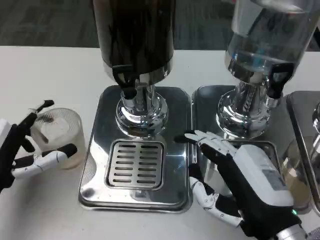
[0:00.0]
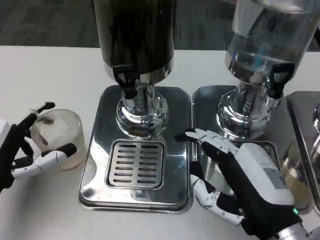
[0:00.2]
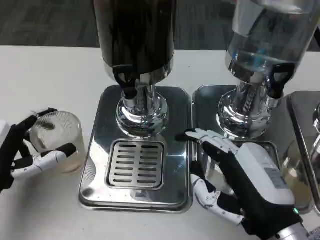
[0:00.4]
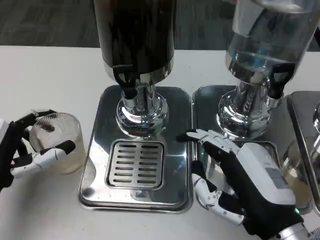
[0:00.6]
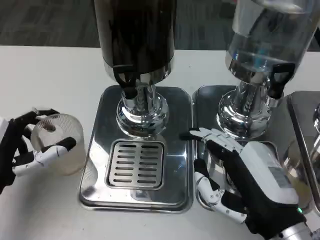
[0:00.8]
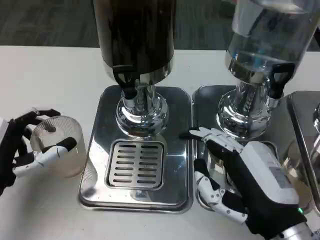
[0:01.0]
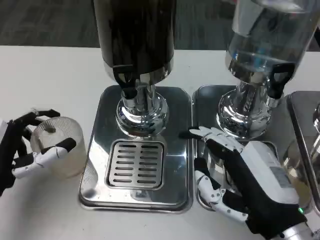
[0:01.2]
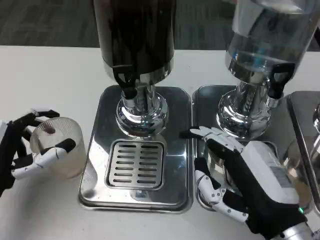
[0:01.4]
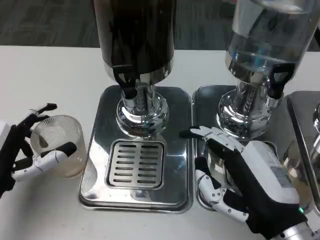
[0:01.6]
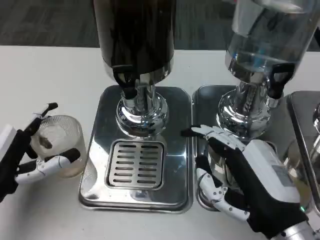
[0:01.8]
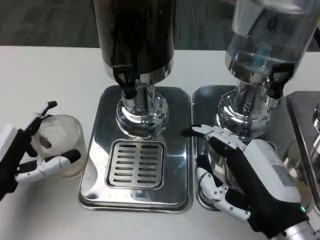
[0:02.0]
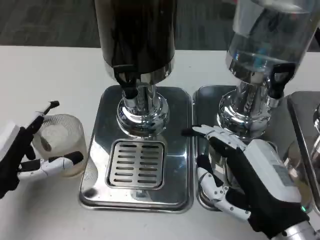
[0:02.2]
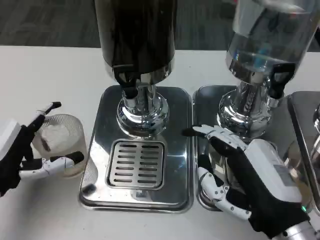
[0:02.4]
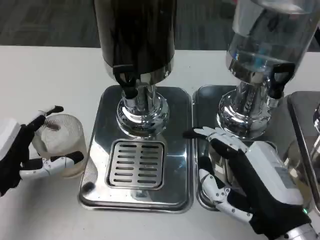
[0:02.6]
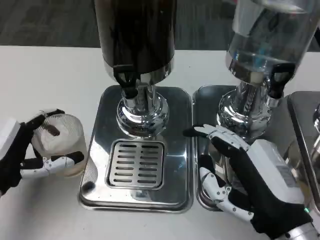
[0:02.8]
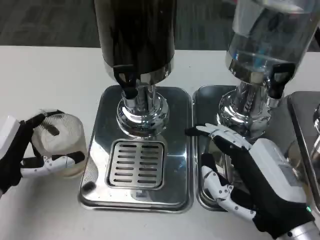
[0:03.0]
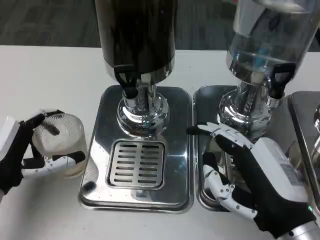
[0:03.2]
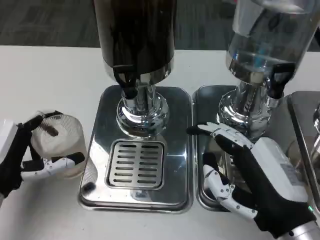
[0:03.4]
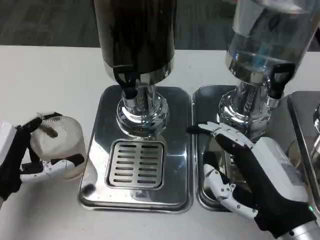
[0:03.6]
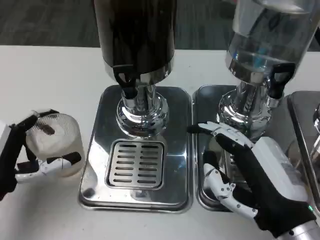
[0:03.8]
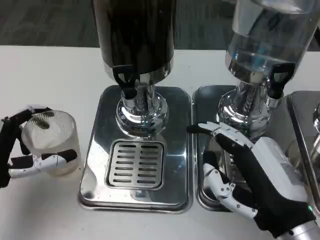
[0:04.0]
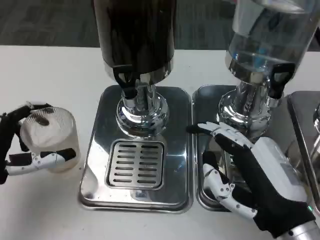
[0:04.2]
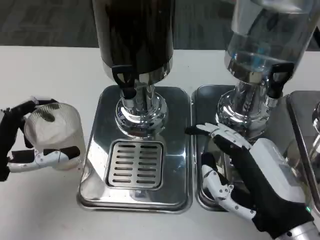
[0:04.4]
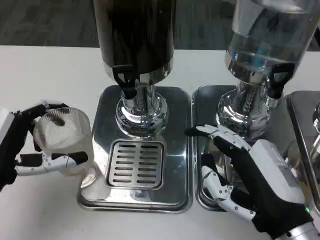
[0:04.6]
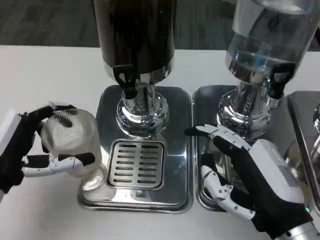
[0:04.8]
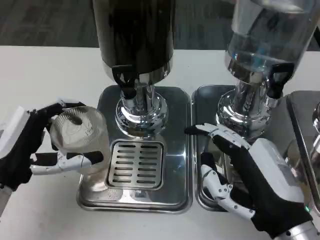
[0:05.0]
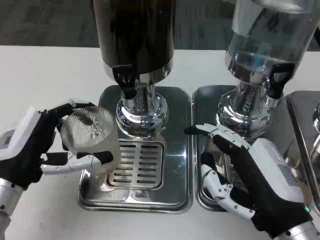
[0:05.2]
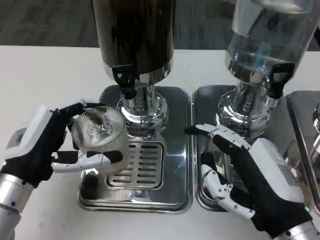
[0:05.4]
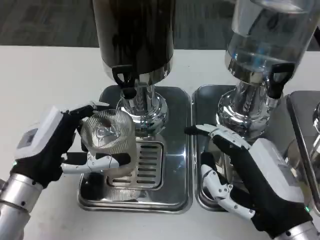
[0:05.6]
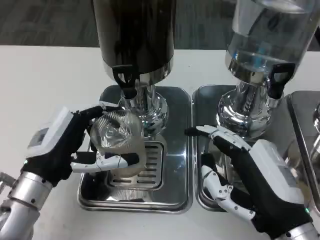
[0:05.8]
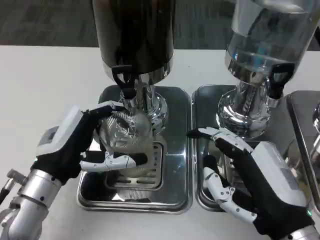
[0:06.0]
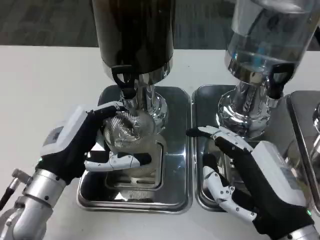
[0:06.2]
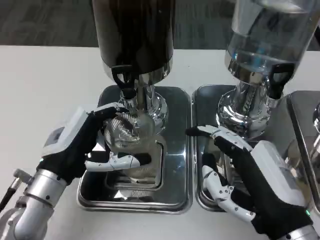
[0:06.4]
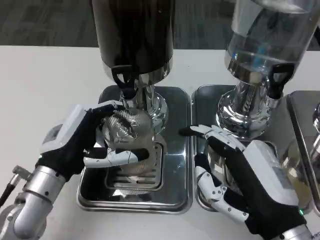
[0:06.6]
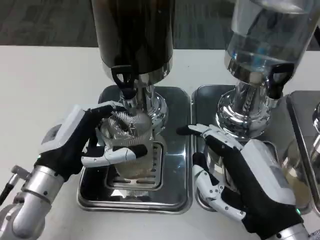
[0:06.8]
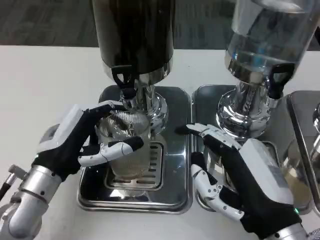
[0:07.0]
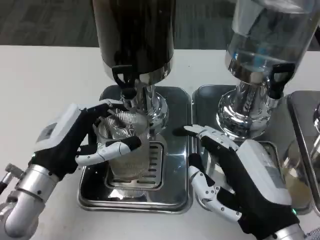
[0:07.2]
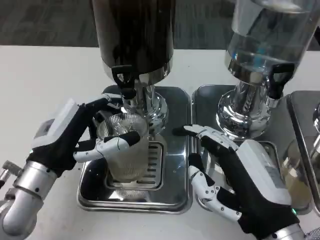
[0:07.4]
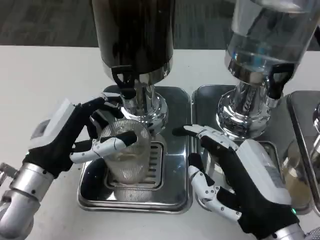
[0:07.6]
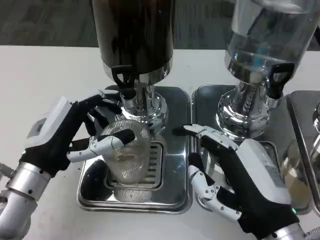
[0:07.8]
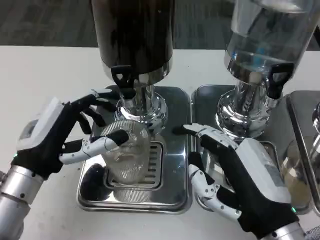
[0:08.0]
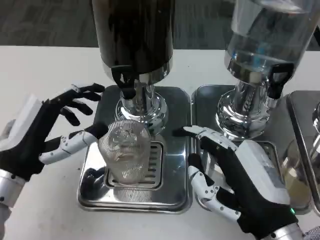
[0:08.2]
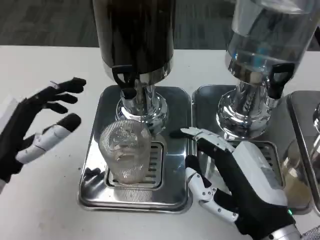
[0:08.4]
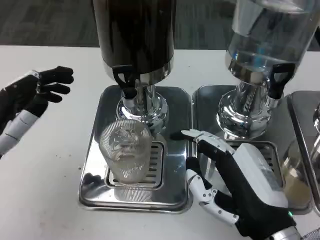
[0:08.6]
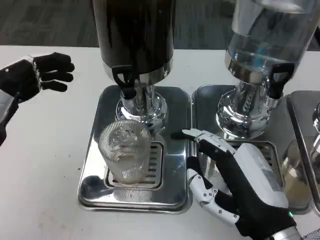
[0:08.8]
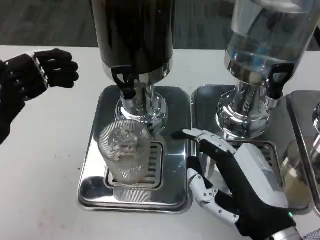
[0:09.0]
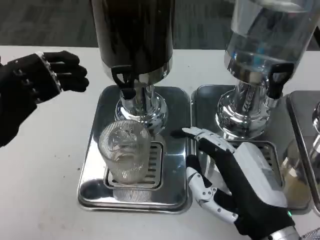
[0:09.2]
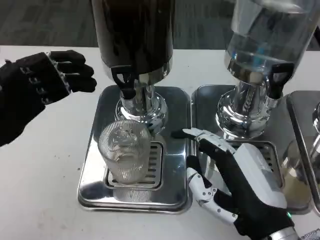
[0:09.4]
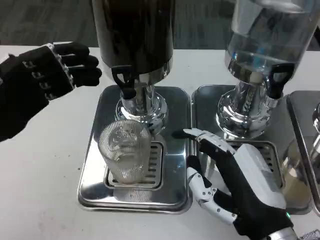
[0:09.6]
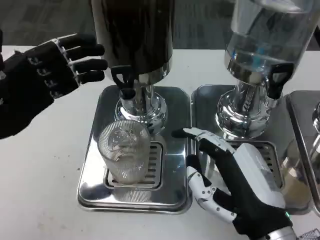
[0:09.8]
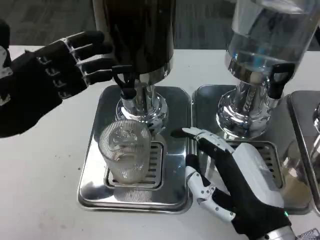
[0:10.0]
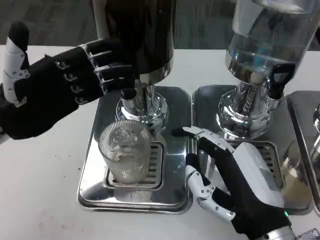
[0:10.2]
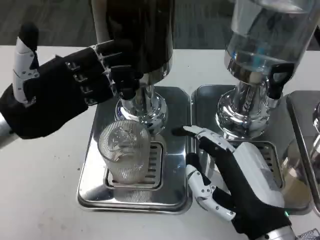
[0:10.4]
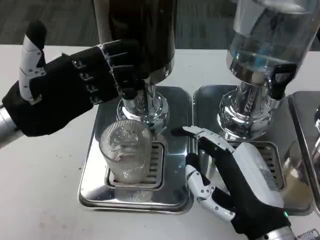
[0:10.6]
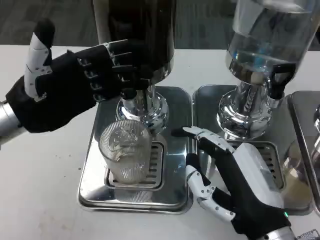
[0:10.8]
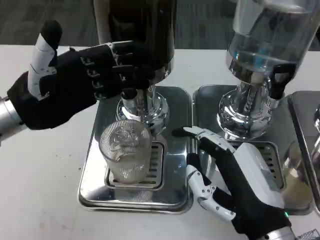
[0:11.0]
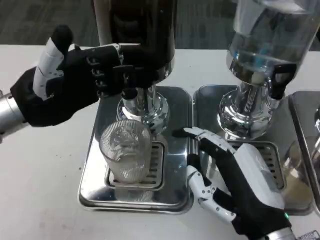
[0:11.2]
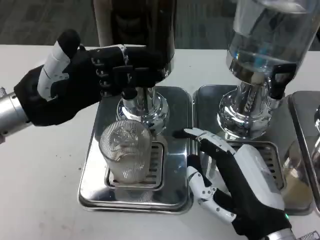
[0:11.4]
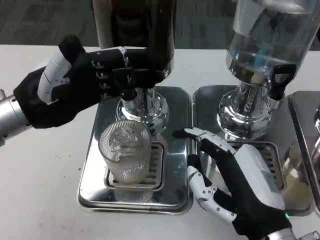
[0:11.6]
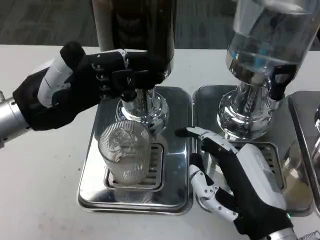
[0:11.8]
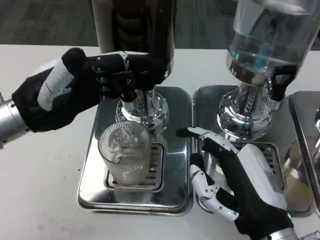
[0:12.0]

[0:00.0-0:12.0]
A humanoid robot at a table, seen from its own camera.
Task of the whole recording: Grasp the cup under the faucet to collect the drink, then remove the cup.
0:00.0 to 0:04.4: There are only small adjustments of the hands.
0:04.4 to 0:06.0: The left hand goes some 10 cm to the right.
0:07.6 to 0:09.0: The left hand moves to the left and upward, about 10 cm.
0:09.0 to 0:10.4: The left hand is displaced forward by about 5 cm.

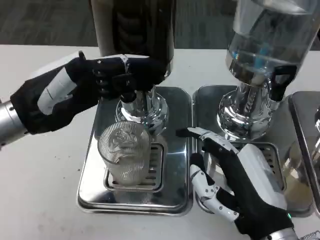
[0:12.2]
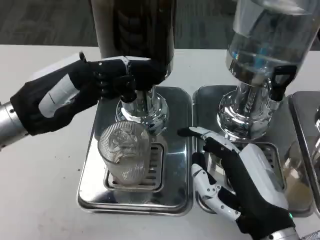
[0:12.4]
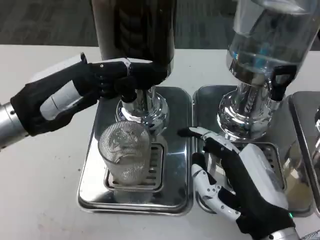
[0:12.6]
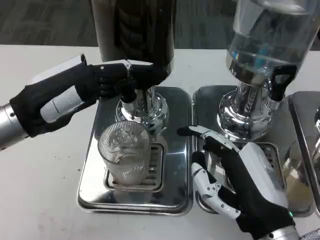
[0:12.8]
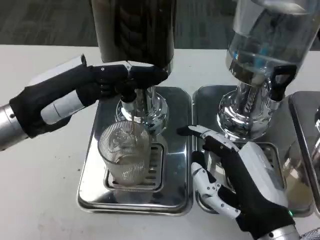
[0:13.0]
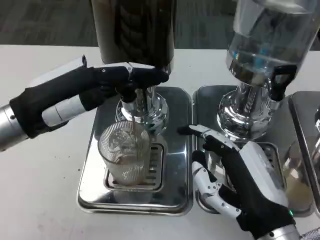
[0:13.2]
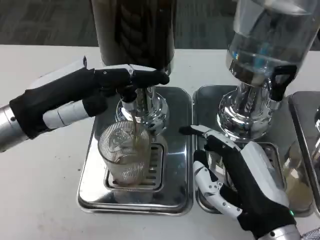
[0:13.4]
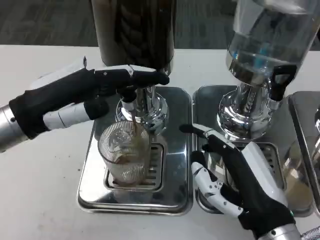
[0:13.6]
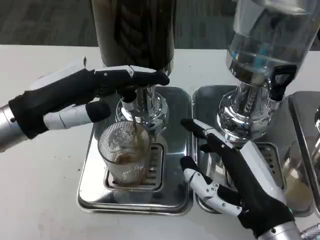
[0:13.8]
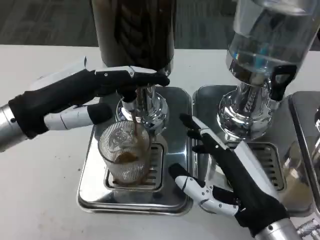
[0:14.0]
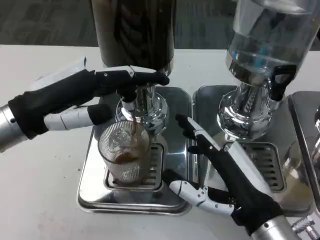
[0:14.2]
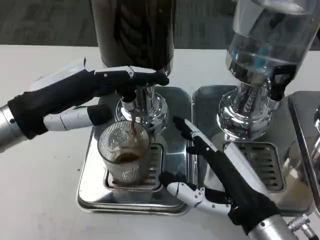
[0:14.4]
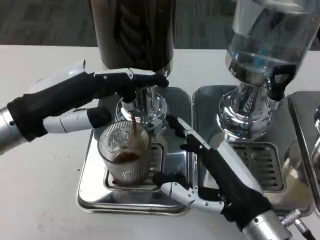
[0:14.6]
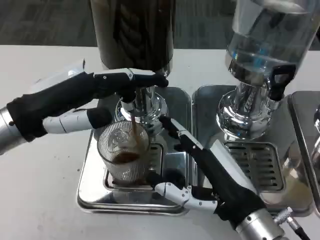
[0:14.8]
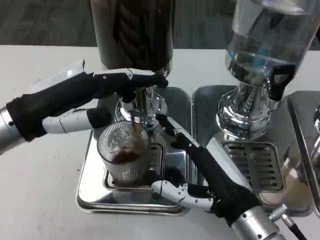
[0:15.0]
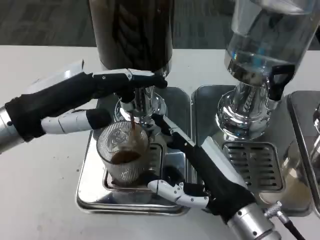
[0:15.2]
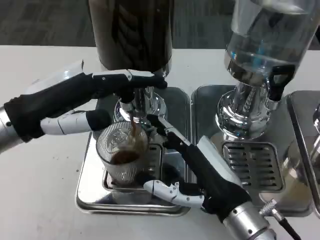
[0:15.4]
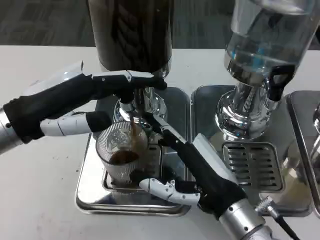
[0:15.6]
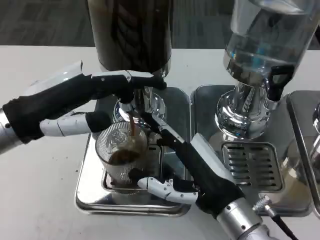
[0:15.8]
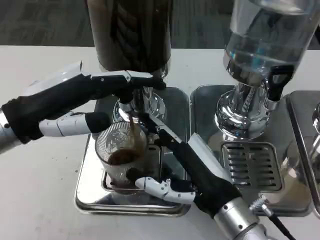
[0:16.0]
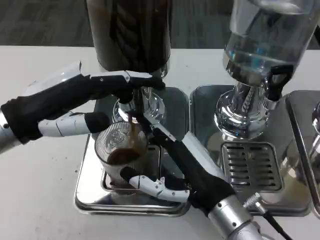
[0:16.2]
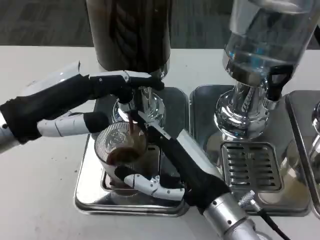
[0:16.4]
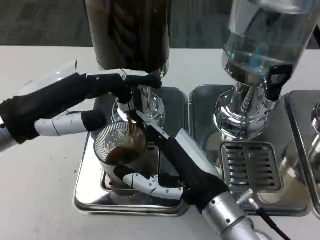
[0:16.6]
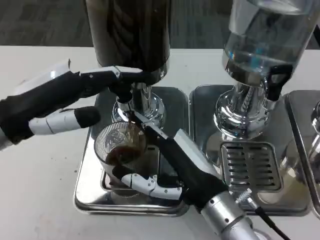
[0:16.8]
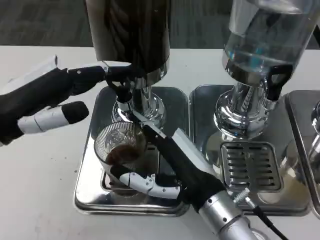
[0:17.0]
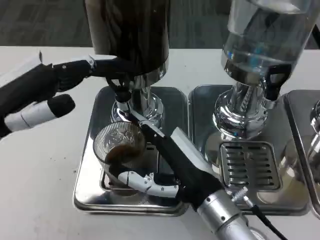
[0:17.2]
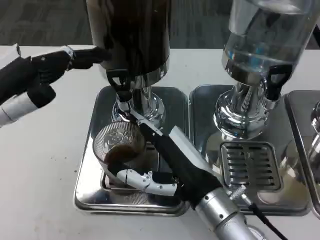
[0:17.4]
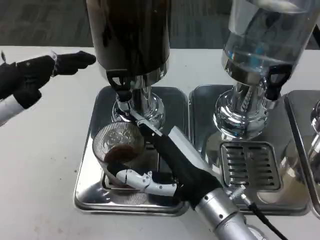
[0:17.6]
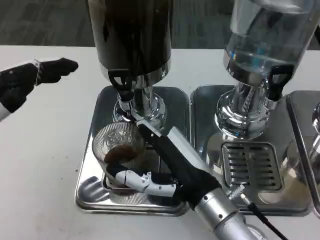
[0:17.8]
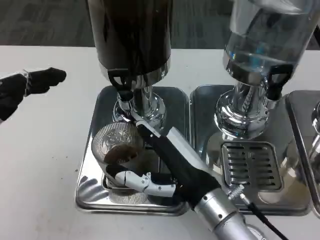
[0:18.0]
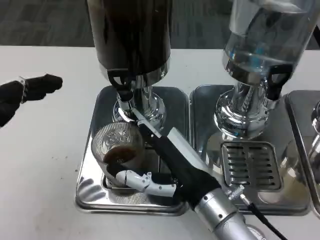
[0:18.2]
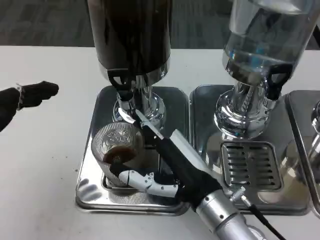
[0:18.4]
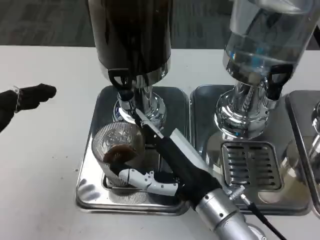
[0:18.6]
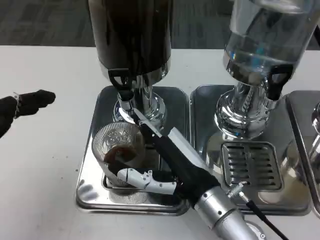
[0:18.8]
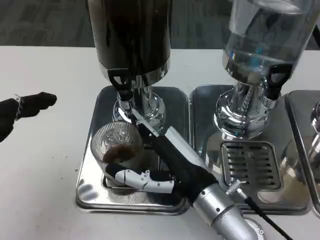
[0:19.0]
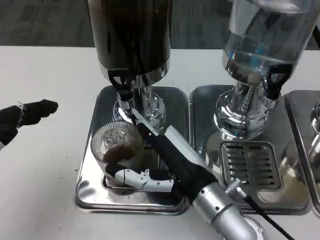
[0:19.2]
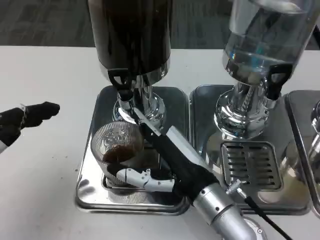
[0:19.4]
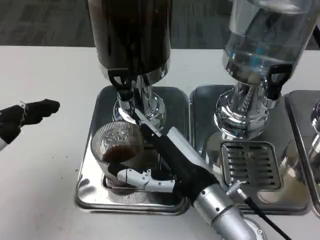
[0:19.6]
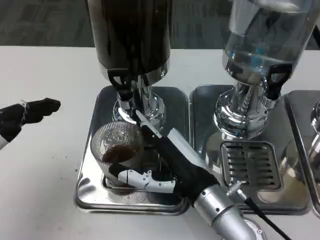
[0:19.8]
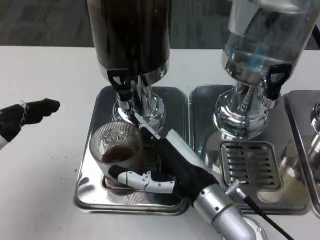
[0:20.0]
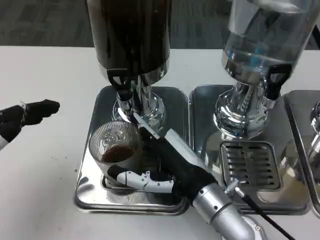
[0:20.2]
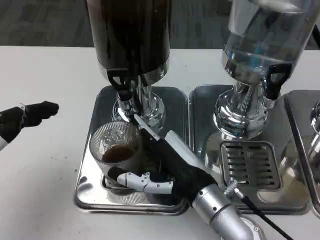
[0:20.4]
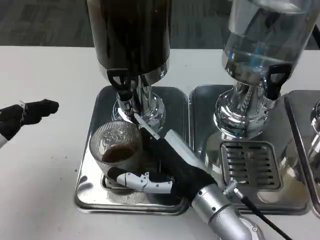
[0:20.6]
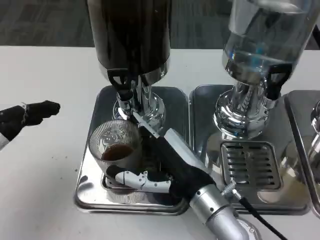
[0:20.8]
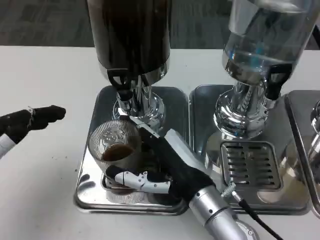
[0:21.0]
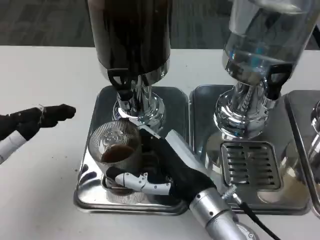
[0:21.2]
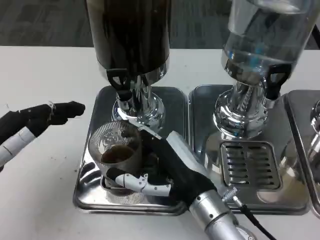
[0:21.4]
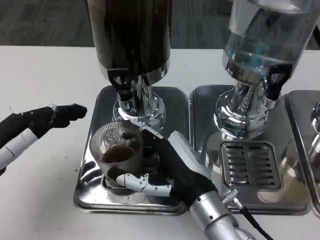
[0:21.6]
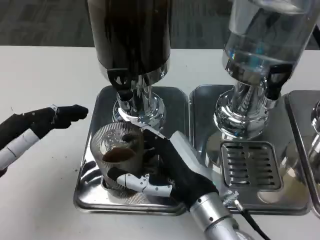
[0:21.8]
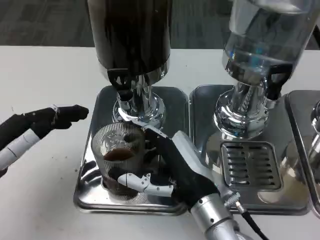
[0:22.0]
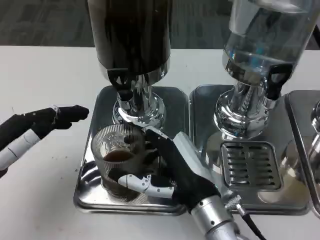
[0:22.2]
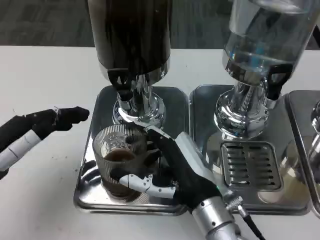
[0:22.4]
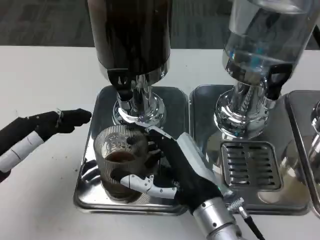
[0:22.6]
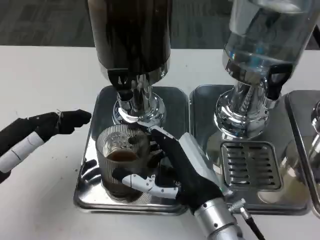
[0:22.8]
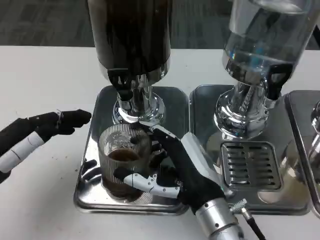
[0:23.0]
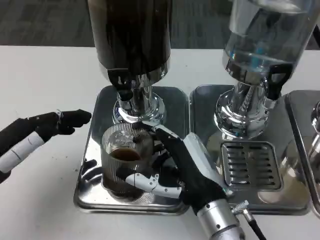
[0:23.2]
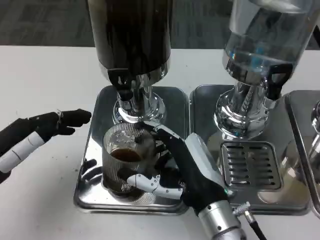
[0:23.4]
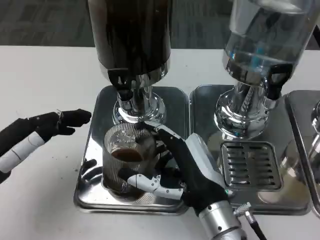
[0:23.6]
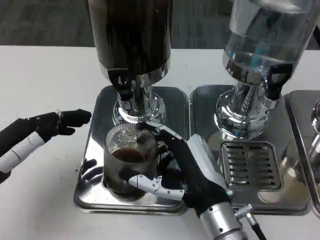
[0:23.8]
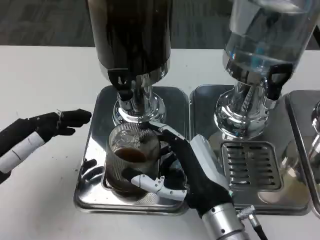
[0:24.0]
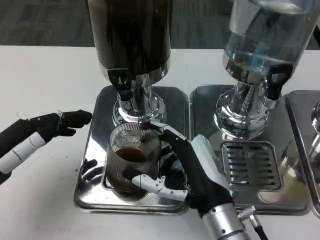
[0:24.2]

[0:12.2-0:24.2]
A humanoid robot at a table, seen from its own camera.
Task of the whole recording: Grasp the cup under the faucet to collect the drink, then remove the cup.
0:16.6 to 0:18.2: The left hand heads to the left and backward, covering about 10 cm.
0:18.2 to 0:24.2: The hands stay close to where they were, moving slightly.
